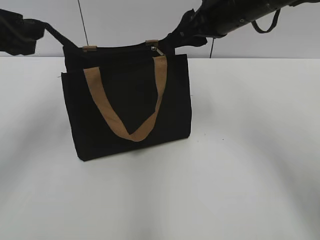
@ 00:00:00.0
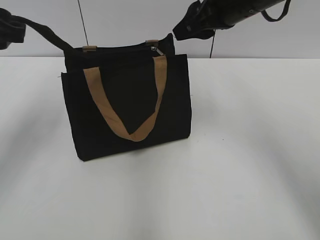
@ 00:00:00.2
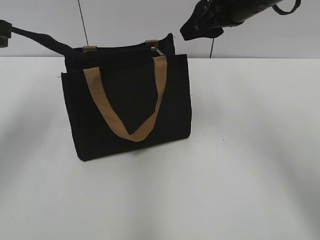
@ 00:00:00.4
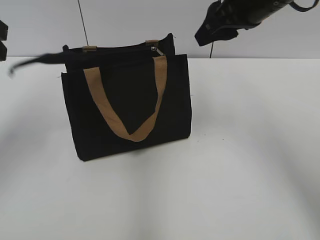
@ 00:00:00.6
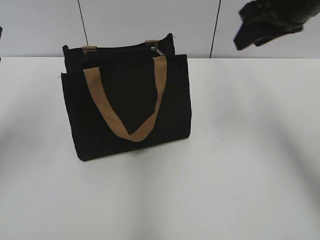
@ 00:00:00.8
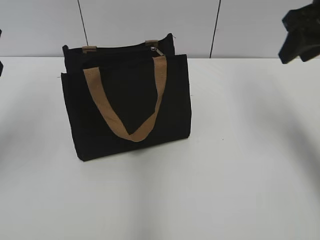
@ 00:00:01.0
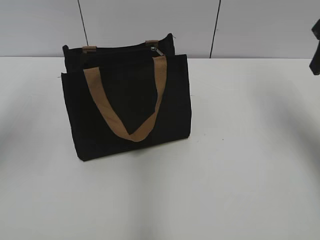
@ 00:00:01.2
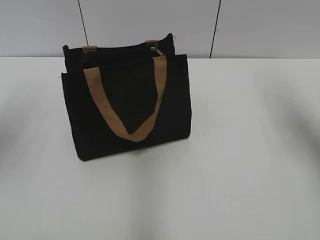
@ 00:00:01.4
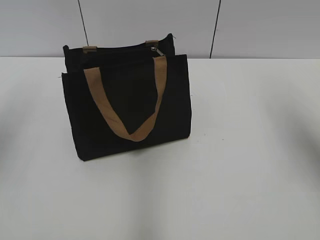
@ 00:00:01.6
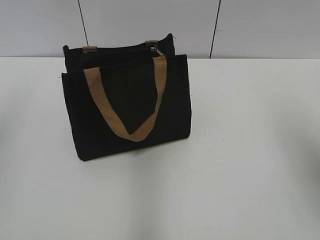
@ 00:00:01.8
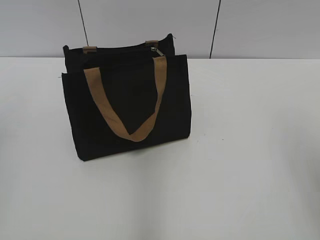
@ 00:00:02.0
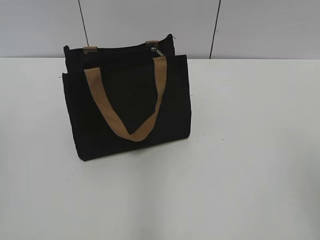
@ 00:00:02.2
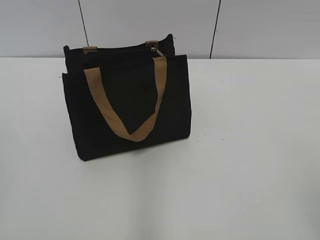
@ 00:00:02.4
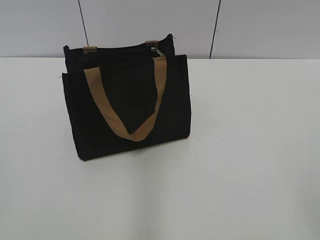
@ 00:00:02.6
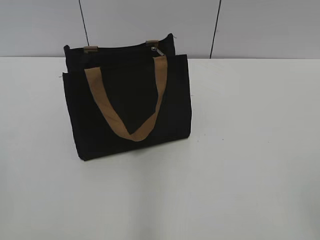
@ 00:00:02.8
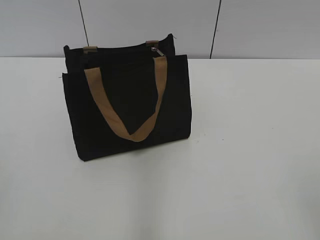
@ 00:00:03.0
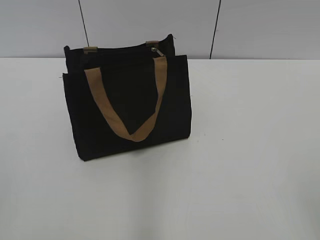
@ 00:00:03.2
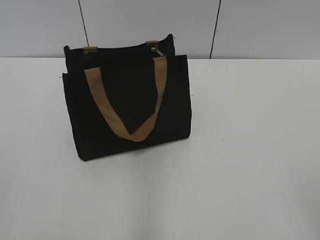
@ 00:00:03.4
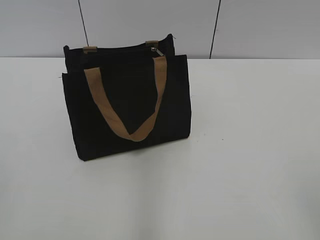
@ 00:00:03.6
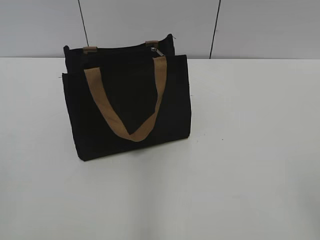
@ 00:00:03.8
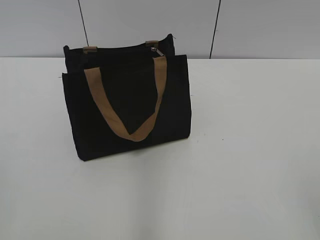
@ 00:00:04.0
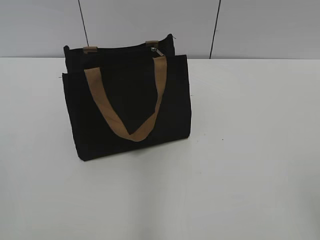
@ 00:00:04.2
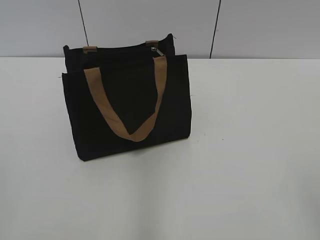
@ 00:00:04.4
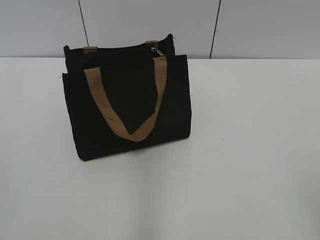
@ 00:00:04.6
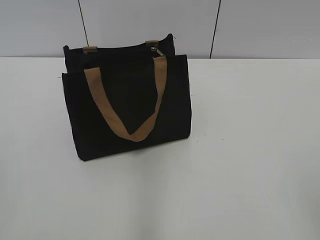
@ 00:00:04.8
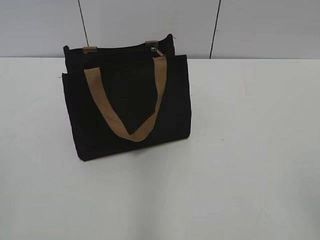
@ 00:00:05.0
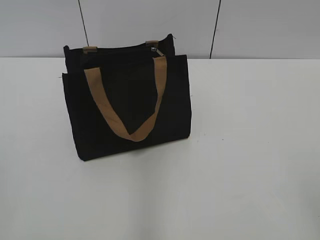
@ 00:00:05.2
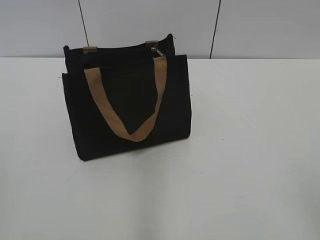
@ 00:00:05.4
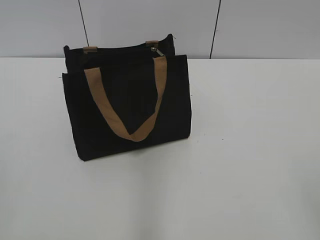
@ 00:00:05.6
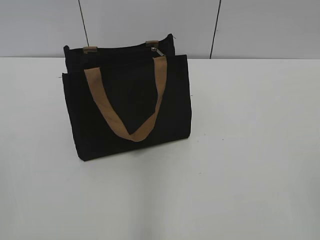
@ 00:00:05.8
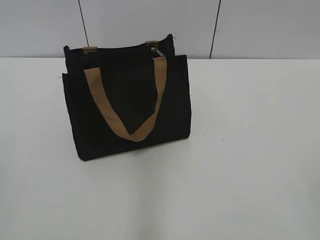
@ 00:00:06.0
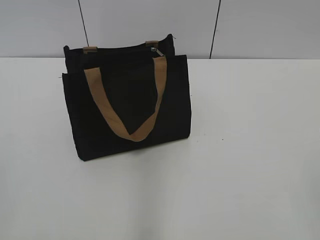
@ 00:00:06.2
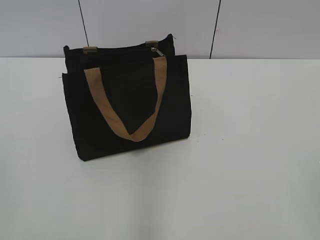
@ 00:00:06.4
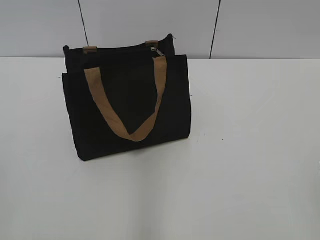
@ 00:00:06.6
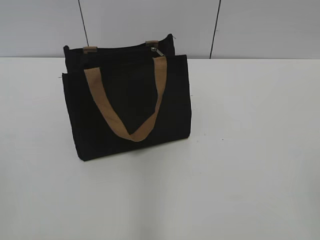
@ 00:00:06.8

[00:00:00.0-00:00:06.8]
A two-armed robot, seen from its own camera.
Step, 00:00:00.0 to 00:00:00.6: Grab the zipper with your left hand.
00:00:00.0 to 00:00:01.4: The left gripper changes place by some 5 cm; the right gripper travels to the right by approximately 20 cm.
00:00:01.4 to 00:00:02.8: Both grippers travel together backward, about 30 cm.
00:00:04.0 to 00:00:05.4: The two grippers keep their place.
